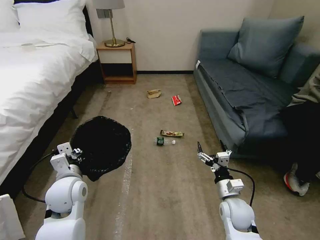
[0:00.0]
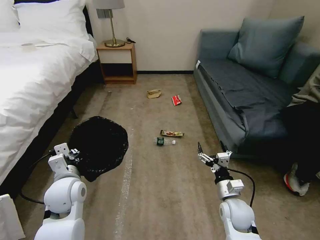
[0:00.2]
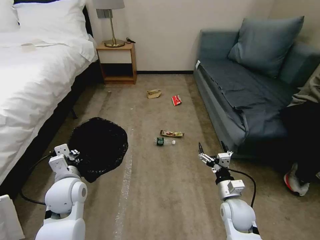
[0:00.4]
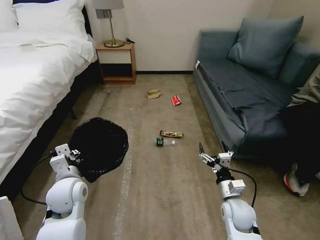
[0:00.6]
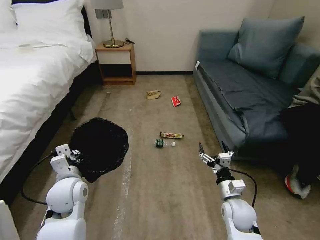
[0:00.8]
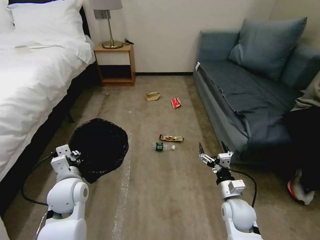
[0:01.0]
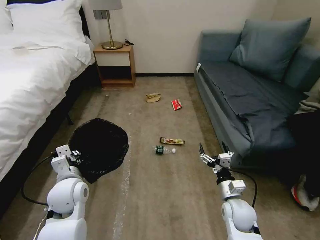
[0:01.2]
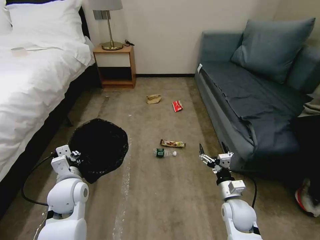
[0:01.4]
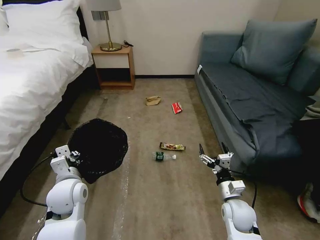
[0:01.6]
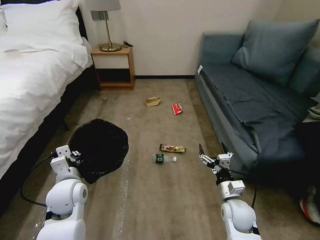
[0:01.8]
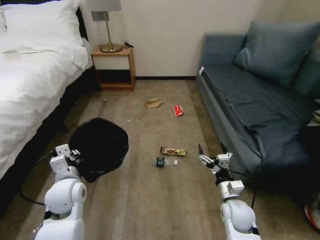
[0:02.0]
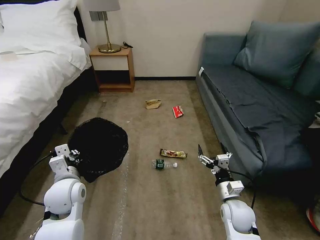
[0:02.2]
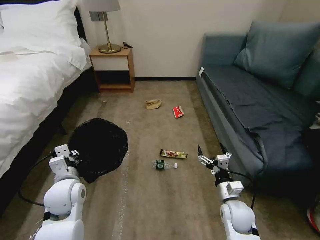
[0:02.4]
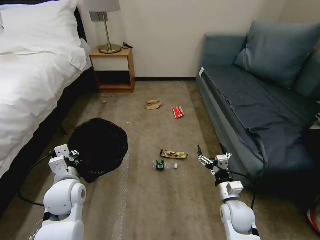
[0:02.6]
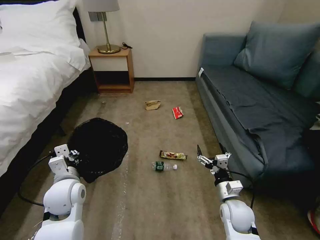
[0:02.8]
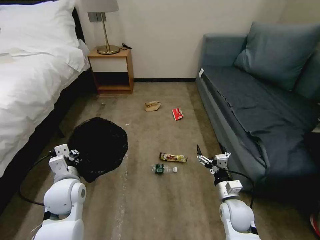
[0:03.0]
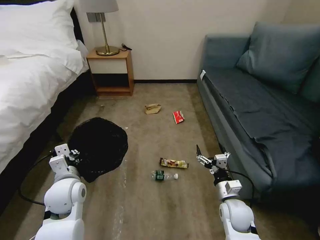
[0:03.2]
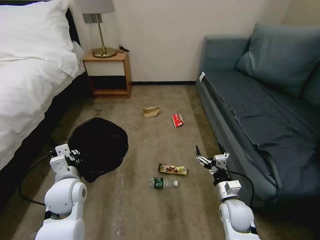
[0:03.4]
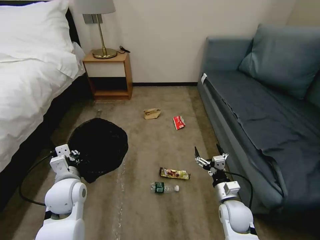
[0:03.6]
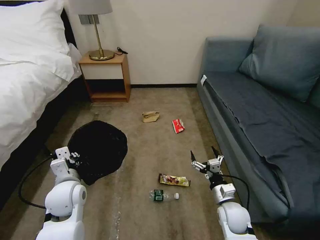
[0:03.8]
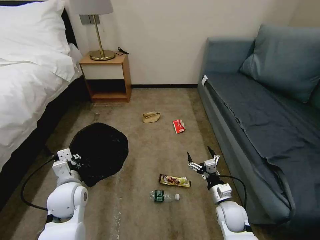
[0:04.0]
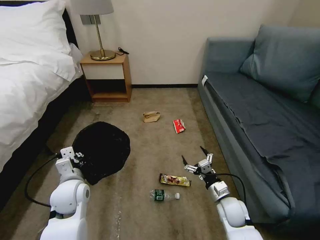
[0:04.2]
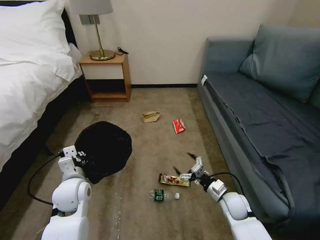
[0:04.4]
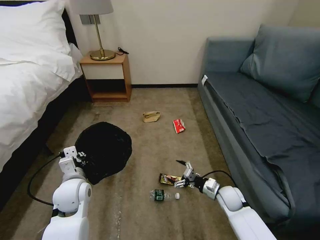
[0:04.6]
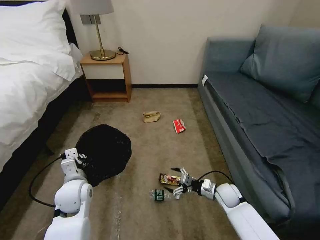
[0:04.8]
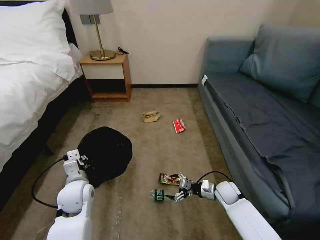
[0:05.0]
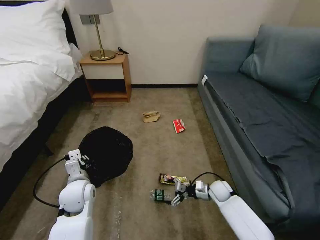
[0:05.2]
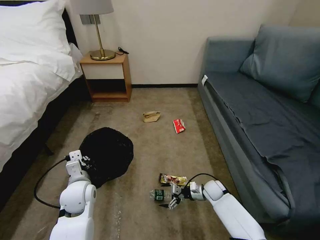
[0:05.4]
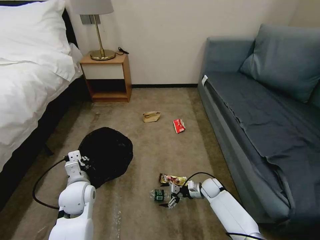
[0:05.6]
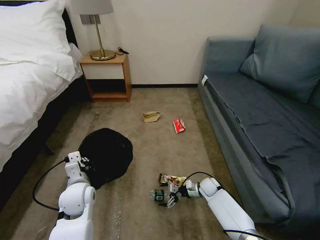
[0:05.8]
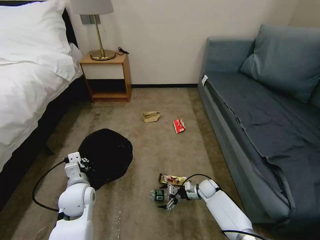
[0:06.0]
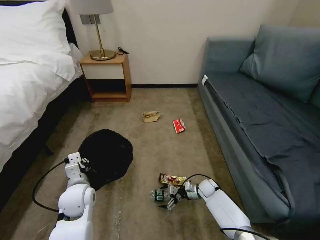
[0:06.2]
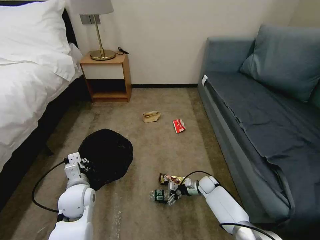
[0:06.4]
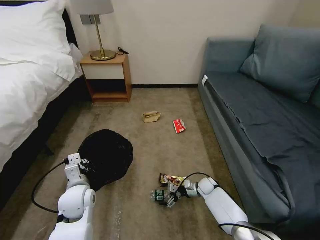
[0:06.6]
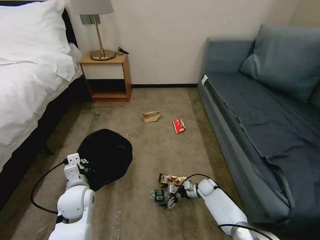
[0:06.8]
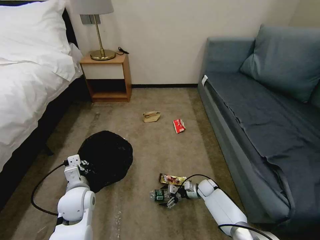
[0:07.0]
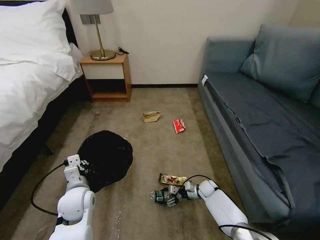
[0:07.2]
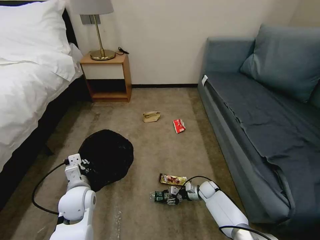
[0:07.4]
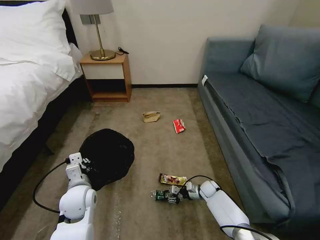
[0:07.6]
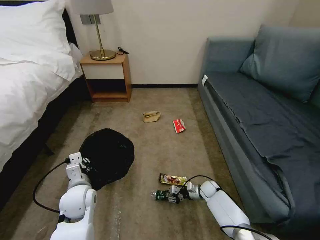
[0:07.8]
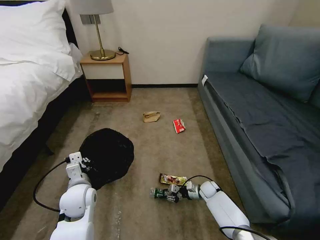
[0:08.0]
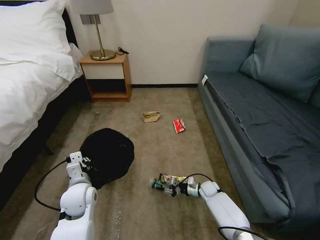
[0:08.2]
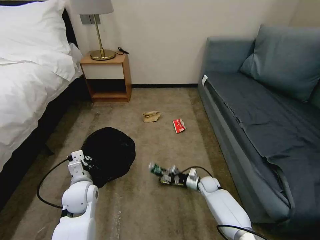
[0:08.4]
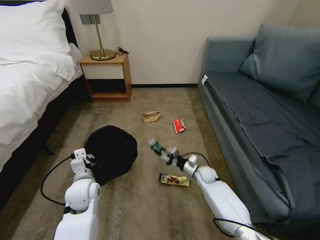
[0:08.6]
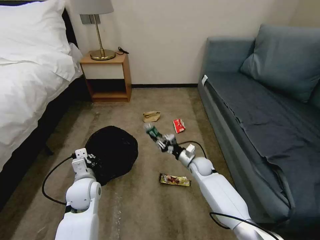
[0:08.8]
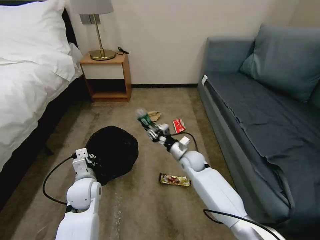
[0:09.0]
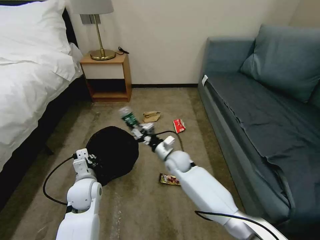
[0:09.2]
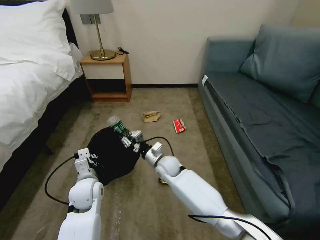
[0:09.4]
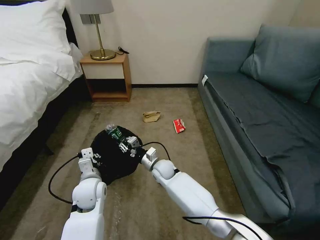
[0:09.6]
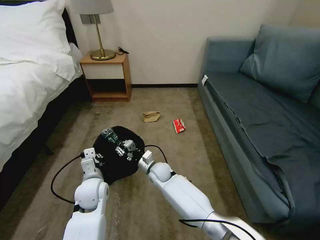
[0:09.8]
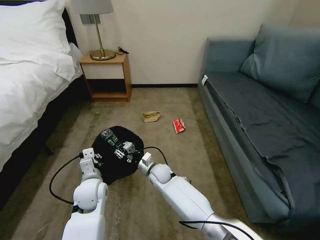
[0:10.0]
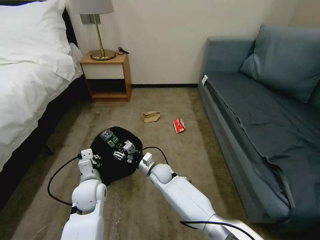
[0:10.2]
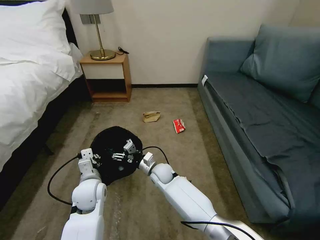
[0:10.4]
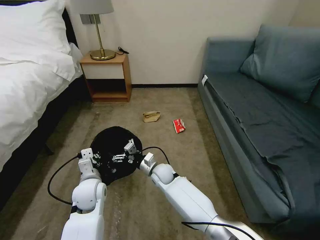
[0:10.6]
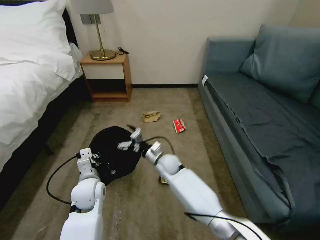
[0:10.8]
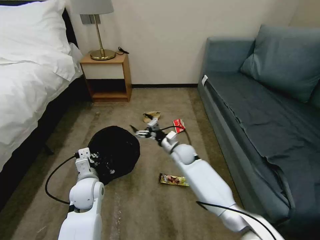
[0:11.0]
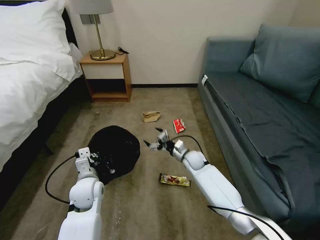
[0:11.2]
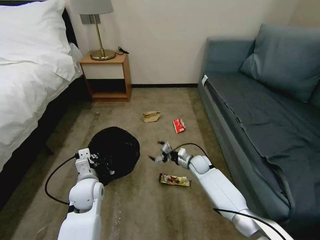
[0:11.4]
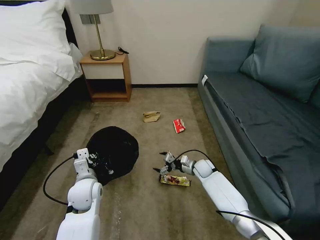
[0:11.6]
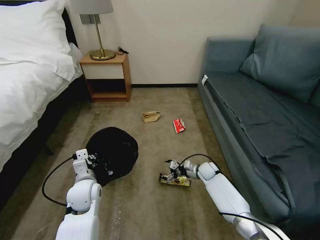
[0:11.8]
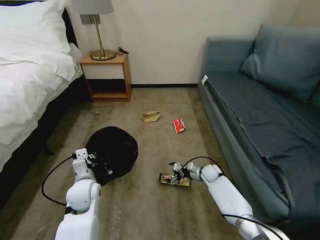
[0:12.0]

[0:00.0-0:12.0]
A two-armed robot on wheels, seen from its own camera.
Task of the whole recording: Pick up the trash bin, then pick up the garbage on the floor and place it into the trash bin.
0:01.6 to 0:03.0: Neither gripper changes place.
0:03.0 to 0:04.4: The right gripper changes place by approximately 5 cm.
0:04.4 to 0:06.0: The right gripper goes some 15 cm downward and forward.
0:06.0 to 0:07.6: The right gripper closes its fingers.
0:07.6 to 0:09.0: The right gripper goes approximately 20 cm upward and to the left.
0:09.0 to 0:10.4: The right gripper shifts some 15 cm to the left, and opens its fingers.
0:10.4 to 0:12.0: The right gripper shifts about 25 cm to the right.

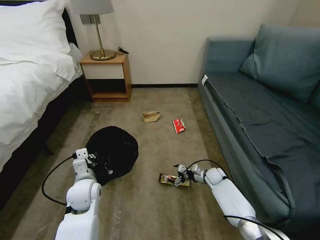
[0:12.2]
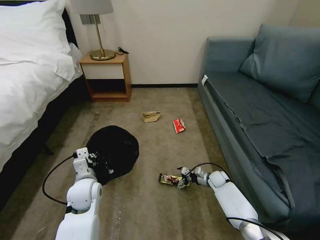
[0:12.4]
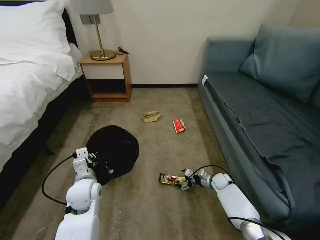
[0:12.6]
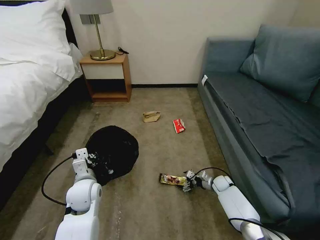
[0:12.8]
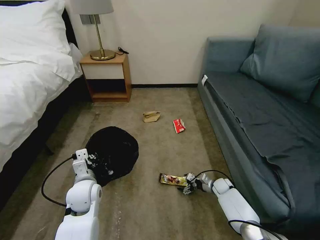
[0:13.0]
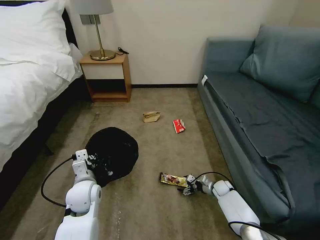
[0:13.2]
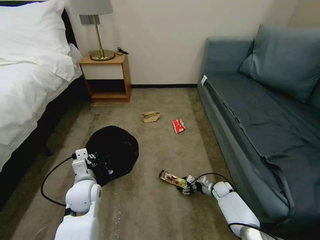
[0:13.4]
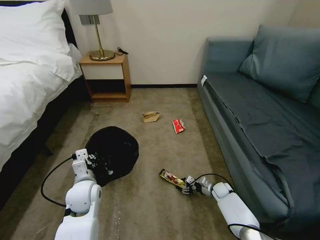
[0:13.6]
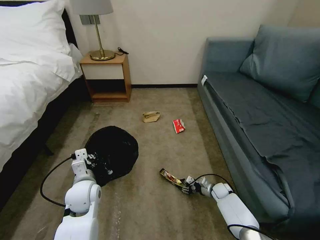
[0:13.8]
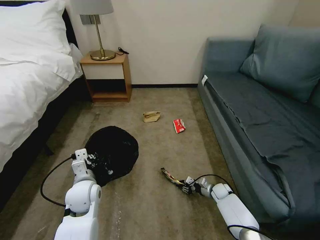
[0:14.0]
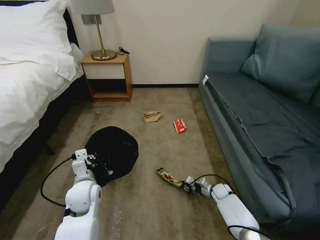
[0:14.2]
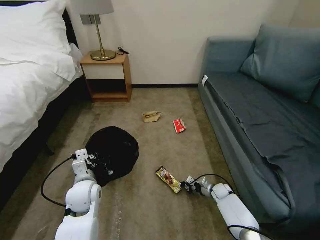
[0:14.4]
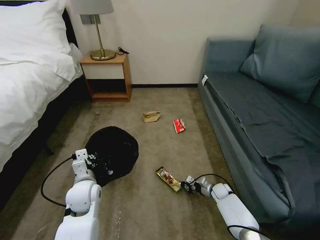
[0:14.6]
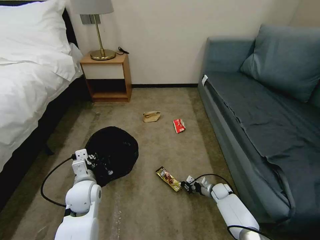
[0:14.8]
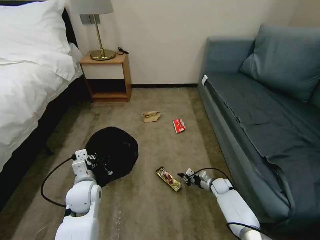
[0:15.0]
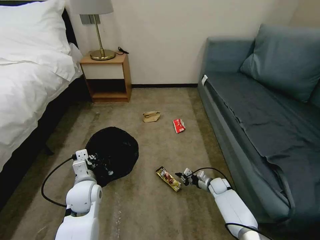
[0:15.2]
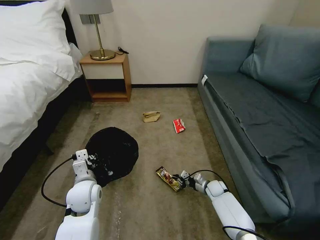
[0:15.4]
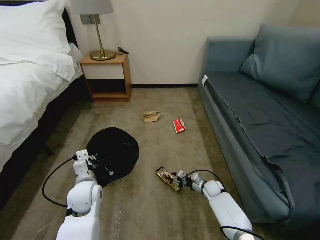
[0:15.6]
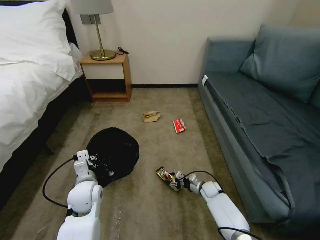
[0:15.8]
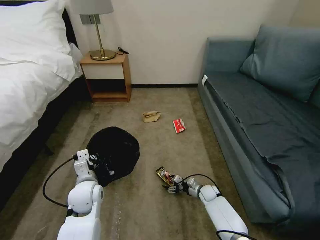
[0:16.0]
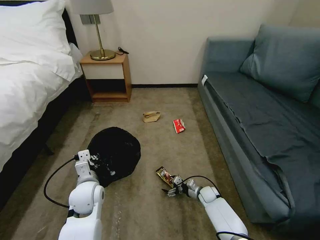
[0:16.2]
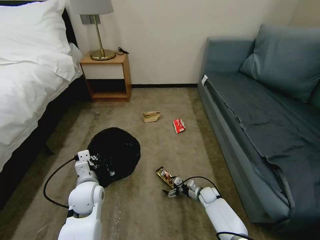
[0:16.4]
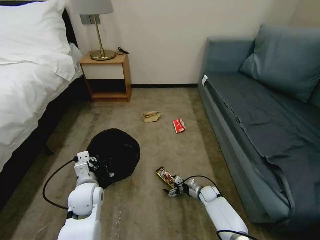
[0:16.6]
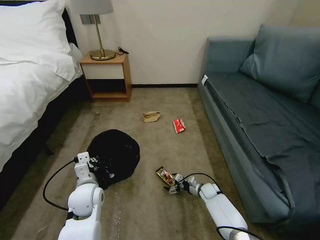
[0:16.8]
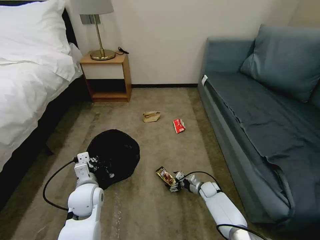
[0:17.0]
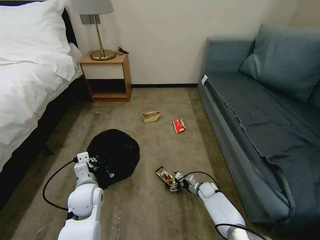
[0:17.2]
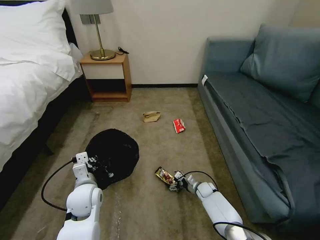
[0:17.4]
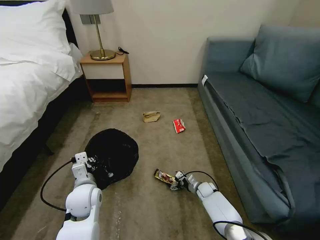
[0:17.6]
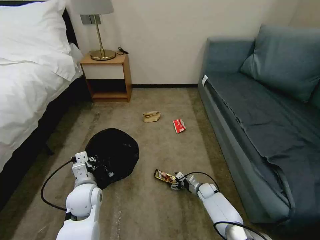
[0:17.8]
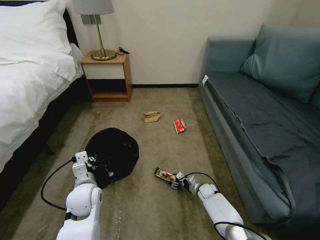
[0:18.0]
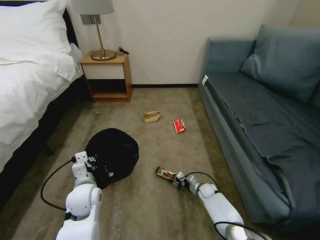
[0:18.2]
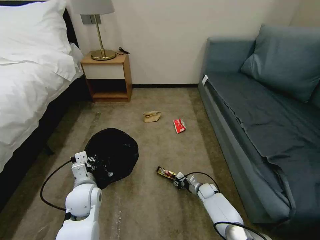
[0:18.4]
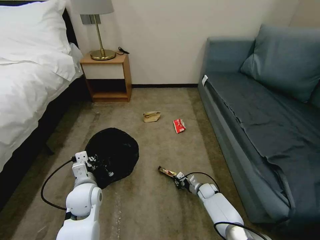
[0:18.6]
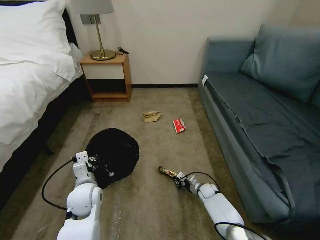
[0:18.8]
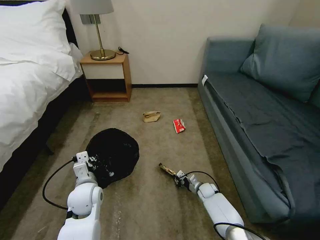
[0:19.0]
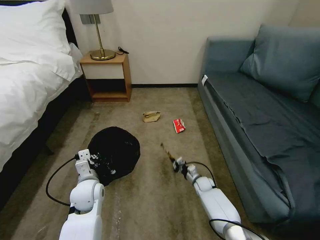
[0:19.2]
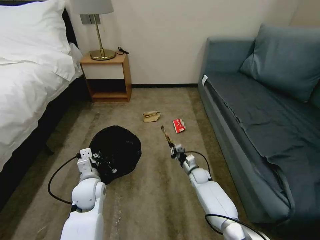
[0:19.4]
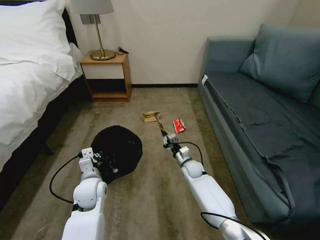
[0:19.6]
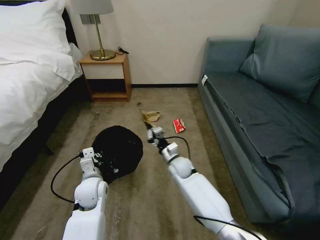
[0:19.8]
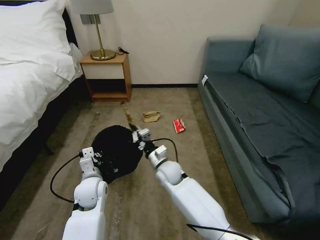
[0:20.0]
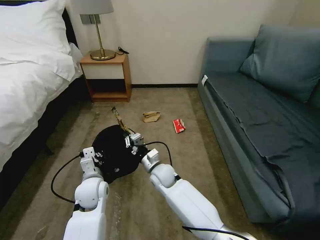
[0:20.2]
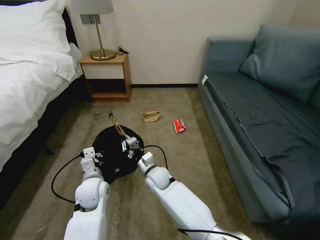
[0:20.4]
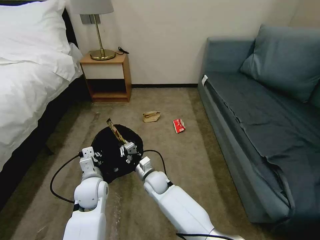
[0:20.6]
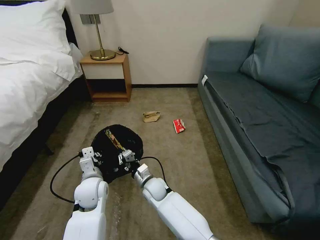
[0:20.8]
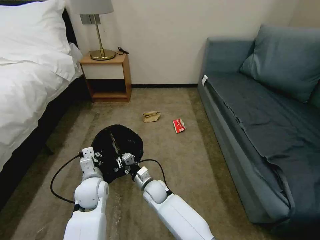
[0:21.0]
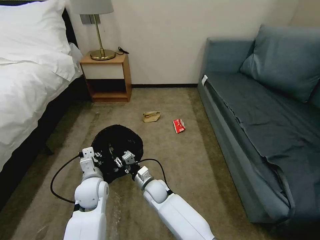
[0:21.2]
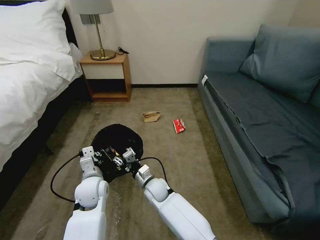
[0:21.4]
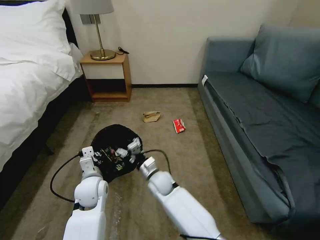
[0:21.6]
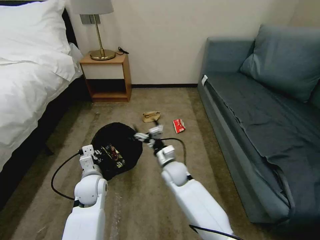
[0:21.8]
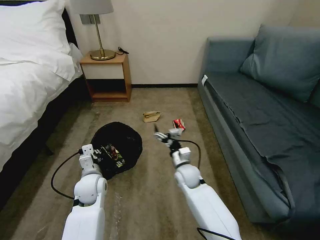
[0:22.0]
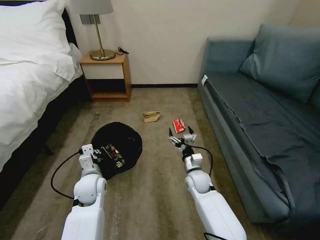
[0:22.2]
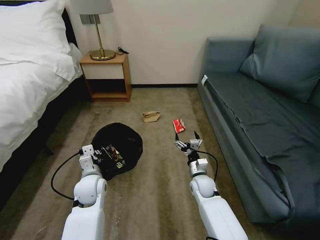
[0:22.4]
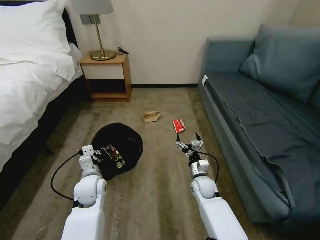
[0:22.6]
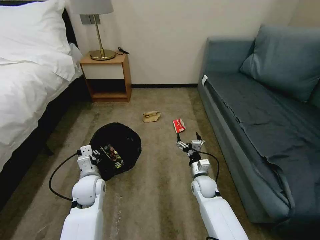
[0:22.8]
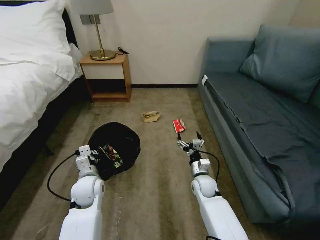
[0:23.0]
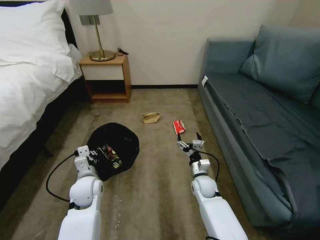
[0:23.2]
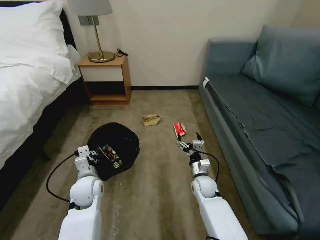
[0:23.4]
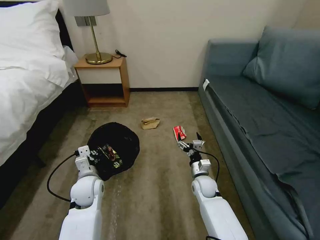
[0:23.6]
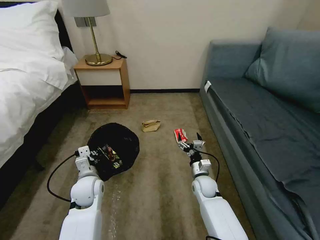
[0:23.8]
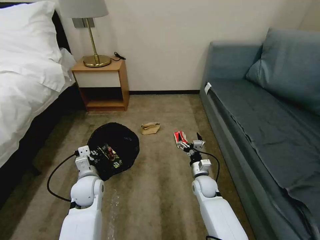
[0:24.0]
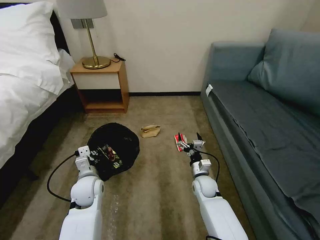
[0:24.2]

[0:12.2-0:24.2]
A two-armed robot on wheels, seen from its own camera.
Task of the whole recording: Pick up the trash bin, then pick up the garbage on the floor and place it into the trash bin.
0:12.2 to 0:13.8: The right gripper travels downward and backward by approximately 10 cm, and closes its fingers.
0:13.8 to 0:15.2: The right gripper closes up.
0:15.2 to 0:16.6: The right gripper changes place by approximately 5 cm, and opens its fingers.
0:16.6 to 0:18.2: The right gripper closes its fingers.
0:18.2 to 0:19.8: The right gripper goes some 25 cm upward and to the left, and closes up.
0:19.8 to 0:21.2: The right gripper moves to the left and backward, about 15 cm.
0:21.2 to 0:22.6: The right gripper is displaced to the right by about 20 cm, and opens up.
